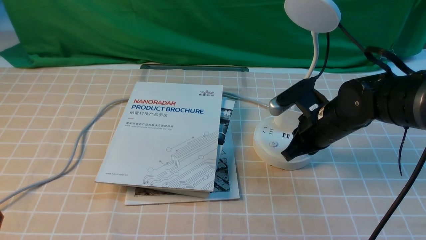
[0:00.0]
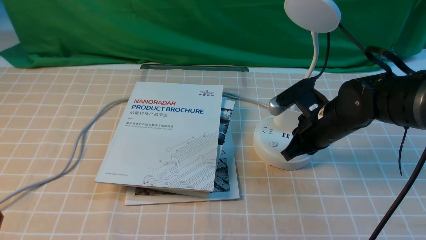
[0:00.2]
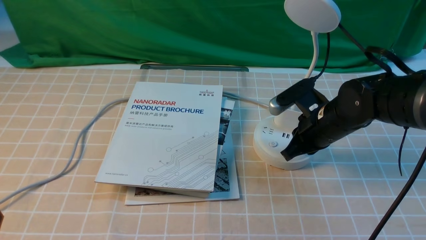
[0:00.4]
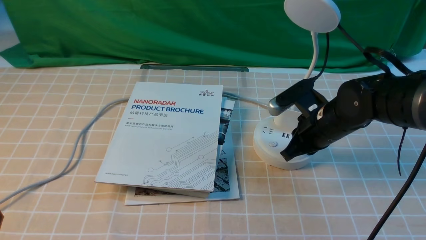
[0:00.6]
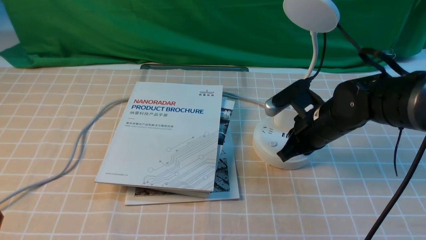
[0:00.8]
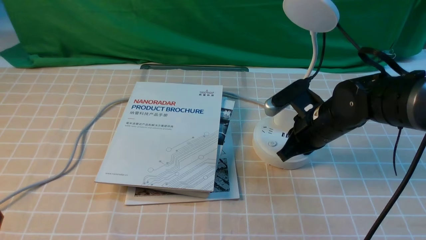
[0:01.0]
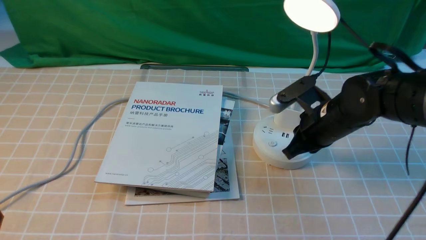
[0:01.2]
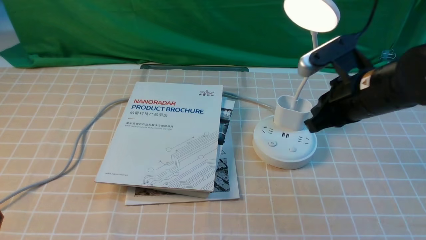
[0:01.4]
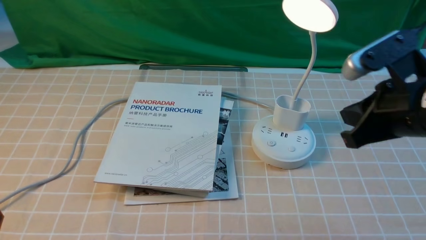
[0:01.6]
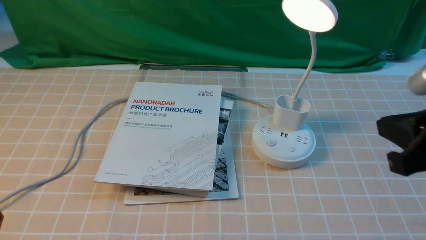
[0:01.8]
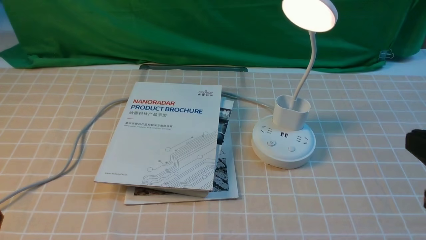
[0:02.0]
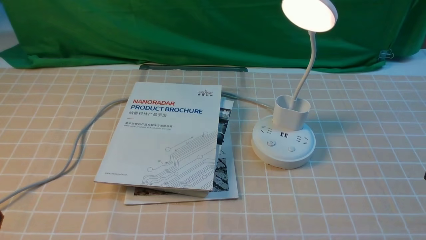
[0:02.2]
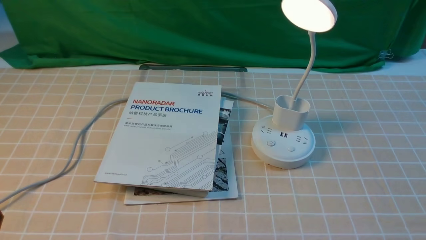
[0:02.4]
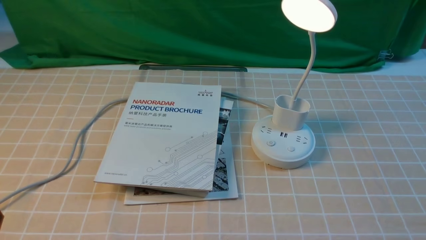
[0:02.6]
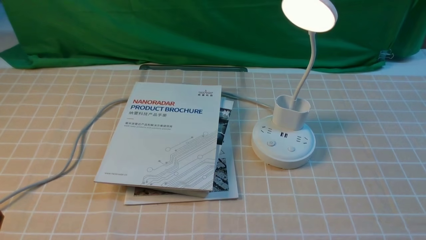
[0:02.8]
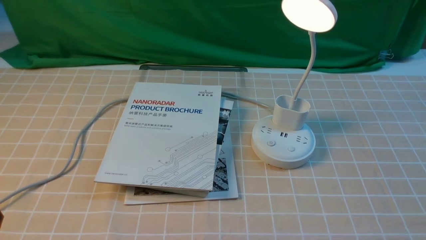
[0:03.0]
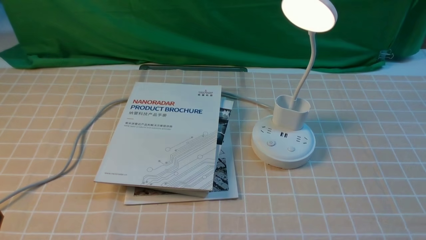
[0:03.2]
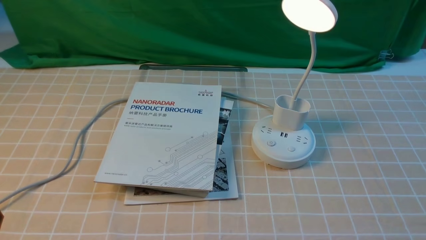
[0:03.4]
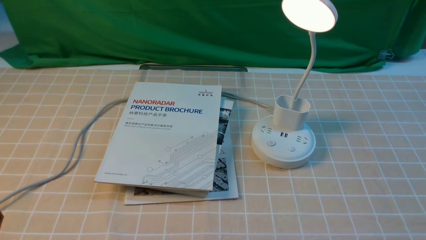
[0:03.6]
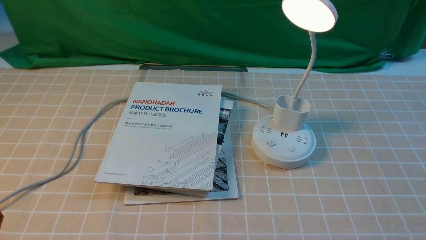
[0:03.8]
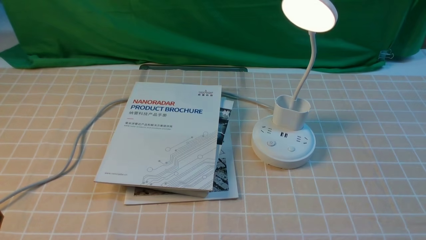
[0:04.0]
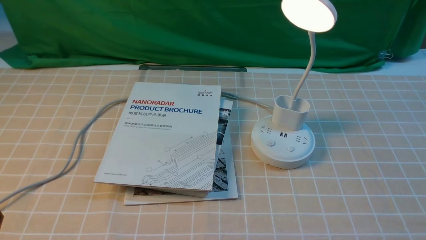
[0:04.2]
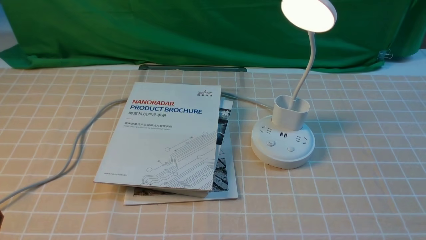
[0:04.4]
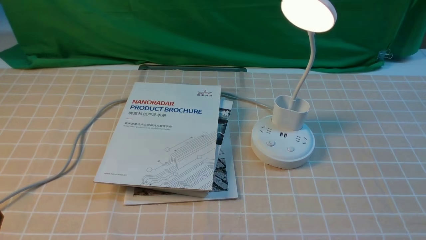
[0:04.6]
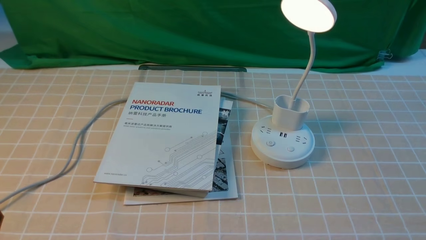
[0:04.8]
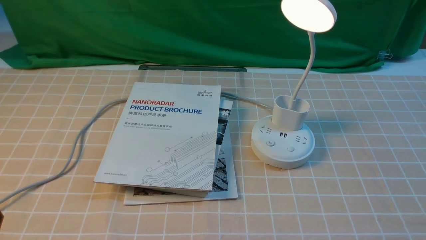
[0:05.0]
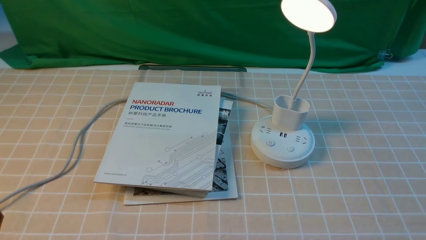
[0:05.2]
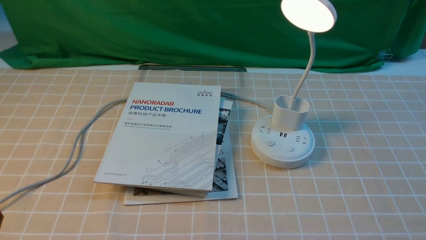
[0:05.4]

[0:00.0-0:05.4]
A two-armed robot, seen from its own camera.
0:00.0 to 0:01.4: The right gripper travels upward by about 5 cm.
0:01.4 to 0:02.8: The right gripper moves backward and to the right, approximately 30 cm, and opens its fingers.
0:04.0 to 0:05.4: Neither gripper changes place.

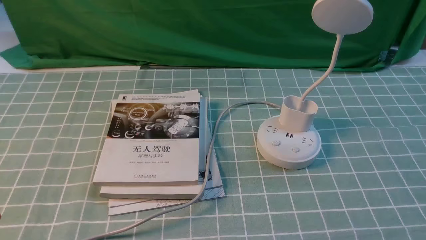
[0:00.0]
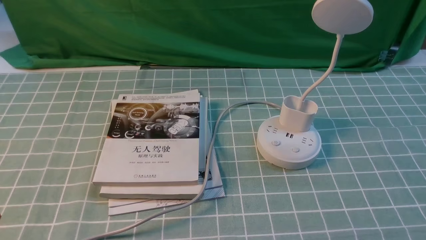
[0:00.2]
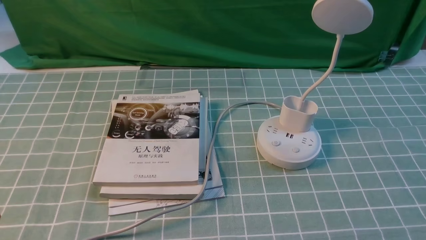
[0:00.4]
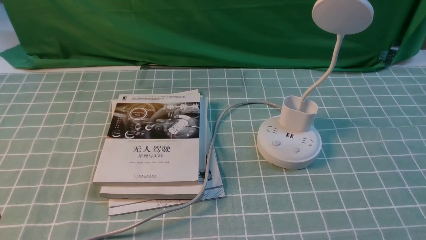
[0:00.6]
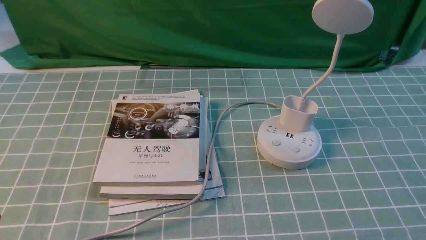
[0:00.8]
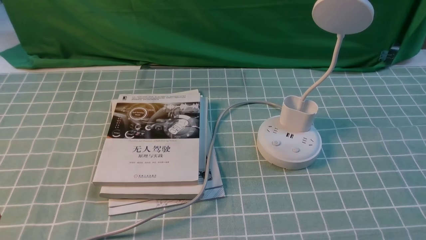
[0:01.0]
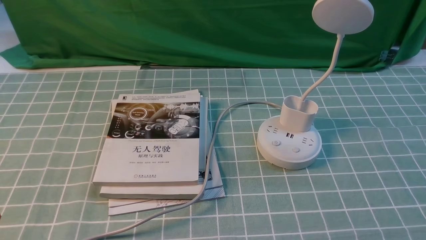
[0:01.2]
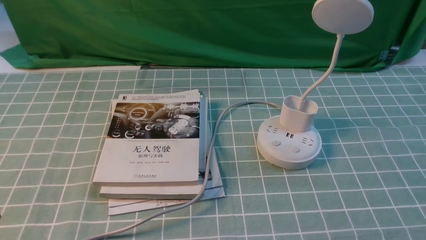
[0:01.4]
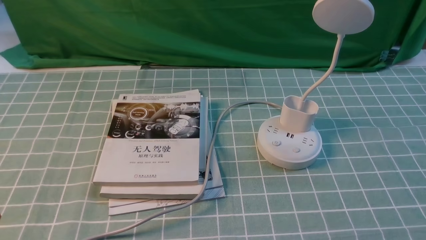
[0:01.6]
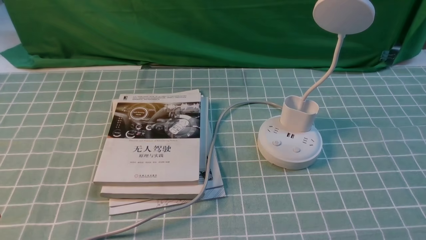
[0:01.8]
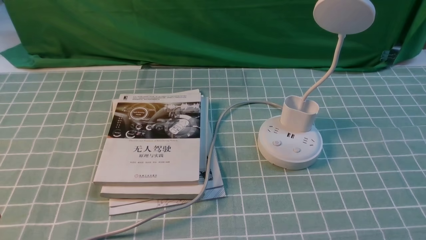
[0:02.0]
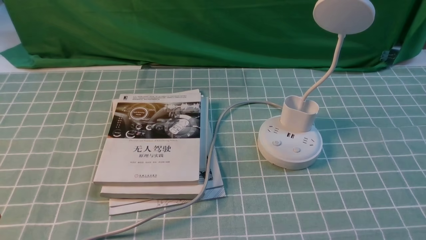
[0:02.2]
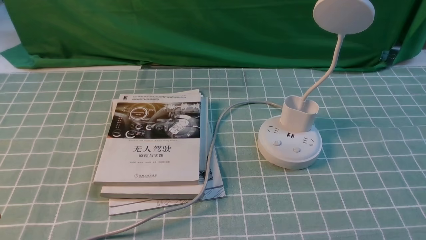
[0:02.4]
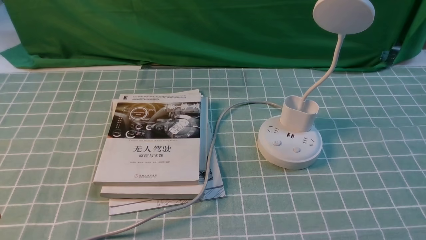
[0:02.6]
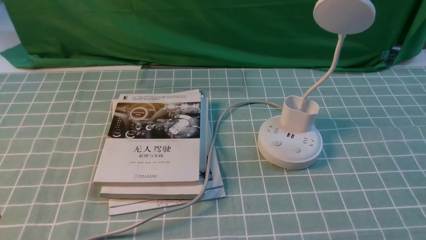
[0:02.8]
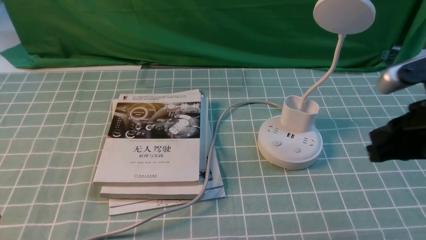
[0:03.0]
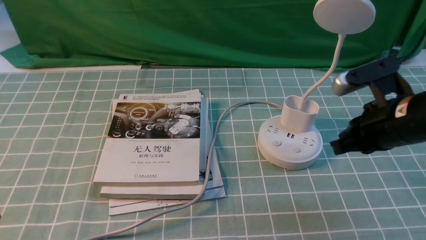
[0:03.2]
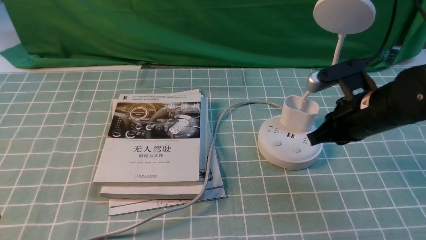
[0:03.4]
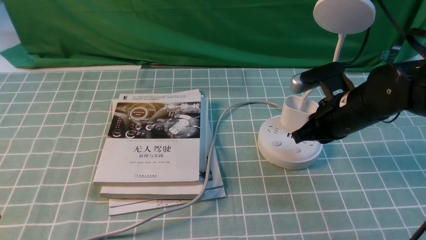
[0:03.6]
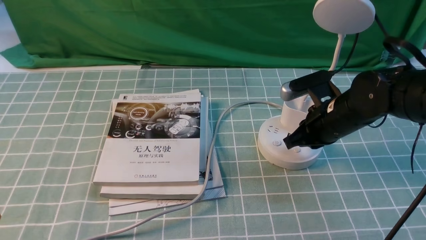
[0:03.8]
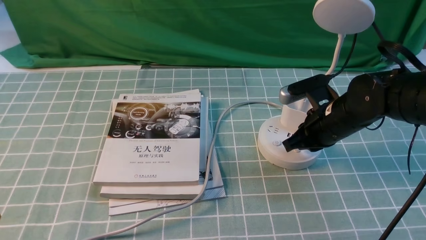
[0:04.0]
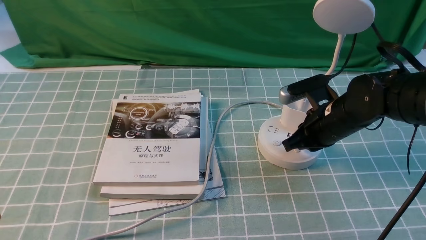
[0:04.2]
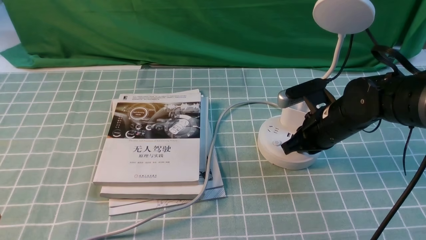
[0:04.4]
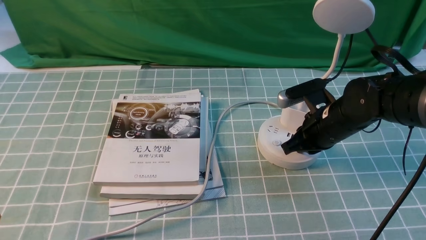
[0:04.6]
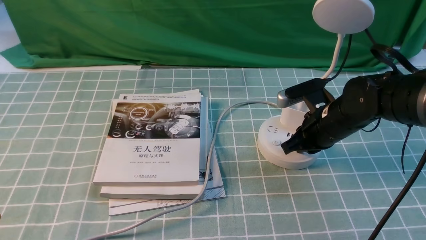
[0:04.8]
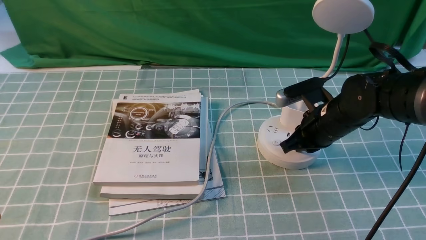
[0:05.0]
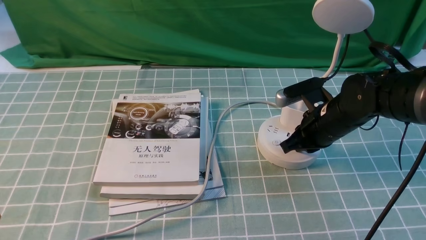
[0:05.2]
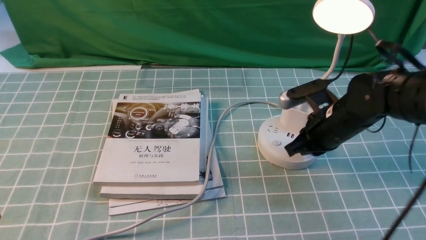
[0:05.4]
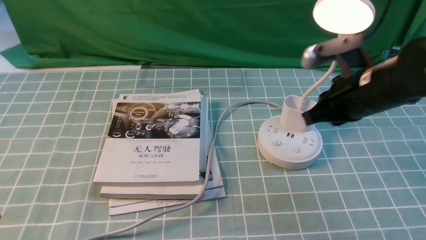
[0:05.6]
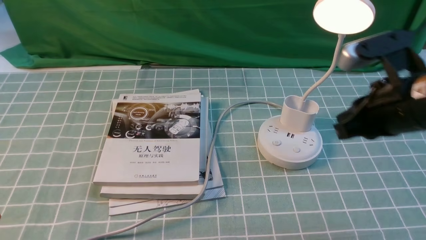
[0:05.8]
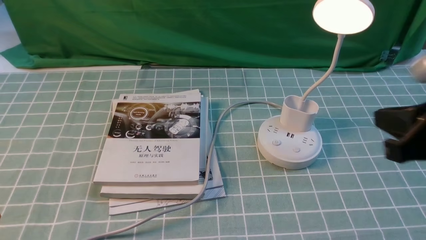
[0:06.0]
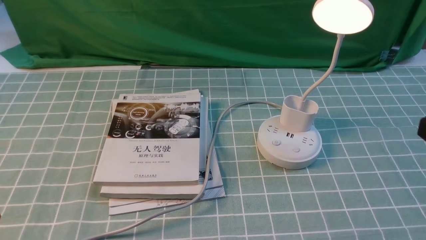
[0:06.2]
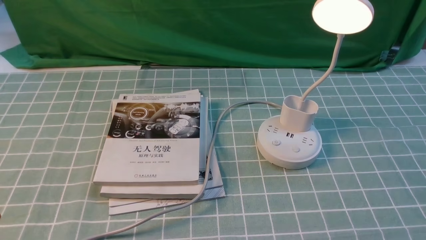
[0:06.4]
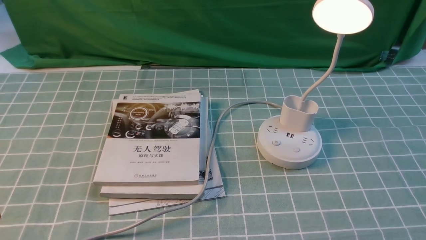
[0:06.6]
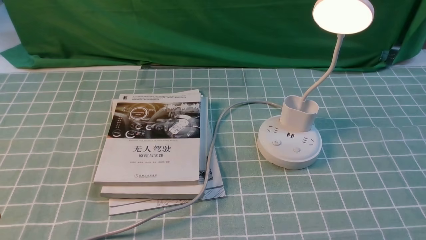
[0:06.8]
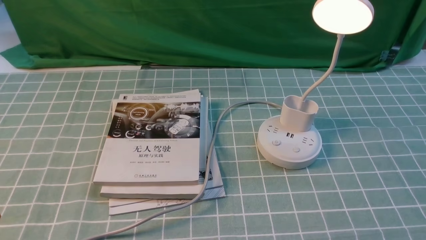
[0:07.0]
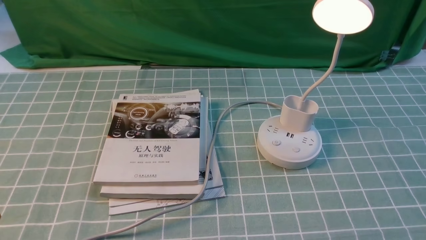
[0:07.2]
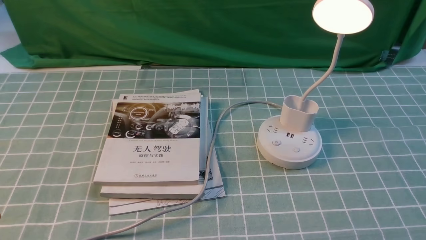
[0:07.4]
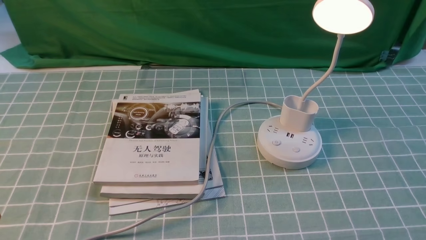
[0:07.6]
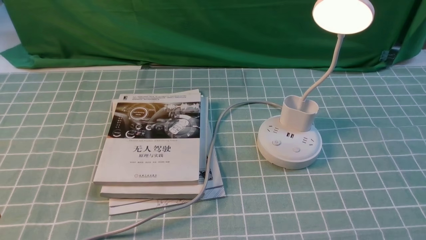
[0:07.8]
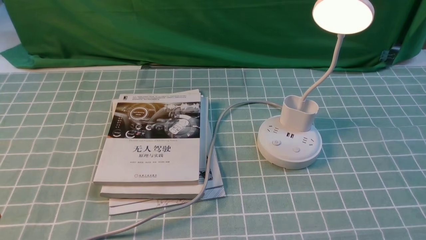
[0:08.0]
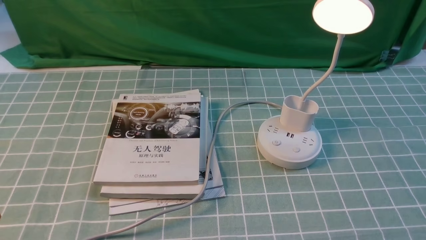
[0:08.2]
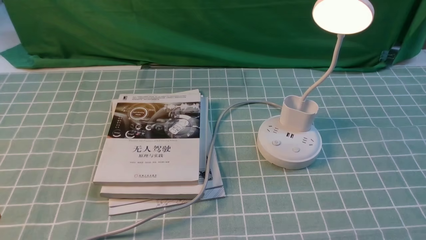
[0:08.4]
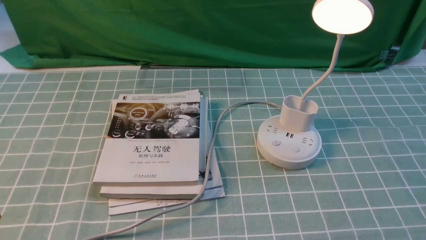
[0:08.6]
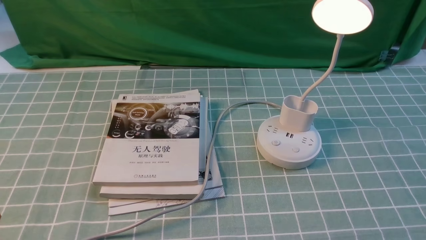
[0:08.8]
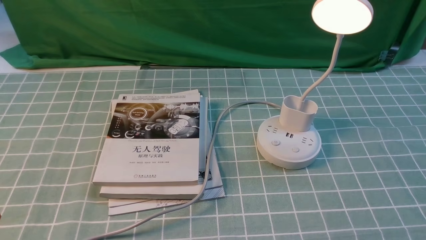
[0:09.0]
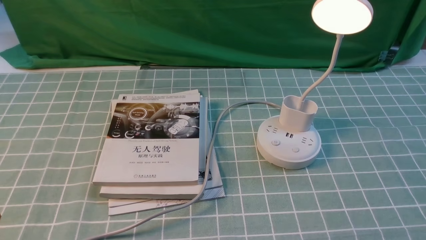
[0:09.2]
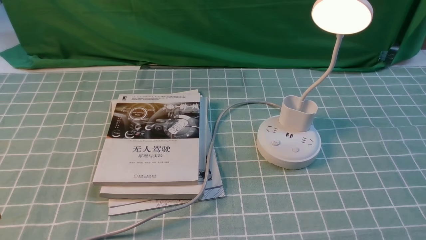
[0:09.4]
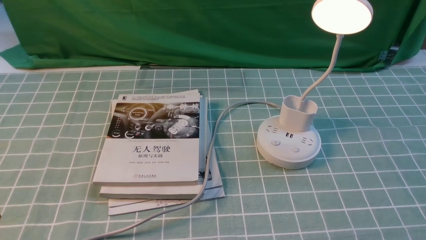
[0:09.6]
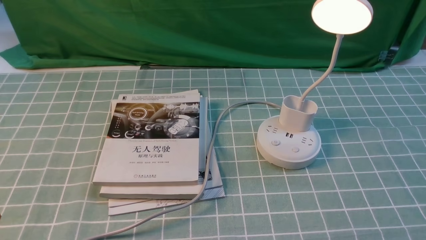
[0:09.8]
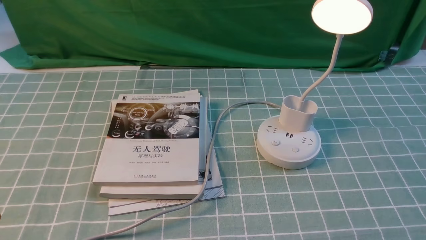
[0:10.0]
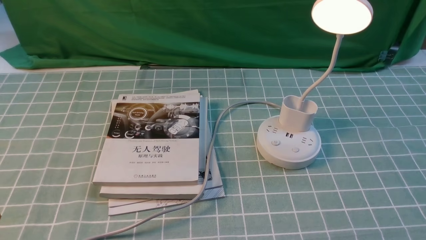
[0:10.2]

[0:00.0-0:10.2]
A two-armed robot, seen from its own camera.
Step, 0:00.0 to 0:05.6: use the right arm to press the button switch on the lamp holder.
0:01.4 to 0:03.0: The right gripper moves forward, upward and to the left, some 20 cm, and closes up.
0:03.0 to 0:04.4: The right gripper shifts about 20 cm downward, forward and to the left.
0:04.4 to 0:05.8: The right gripper shifts about 20 cm upward and backward.
0:05.8 to 0:07.2: The right gripper goes approximately 20 cm backward, to the right and downward, and opens its fingers.
0:08.8 to 0:10.2: Neither gripper changes place.
